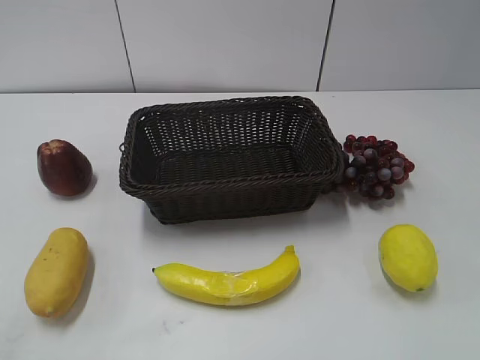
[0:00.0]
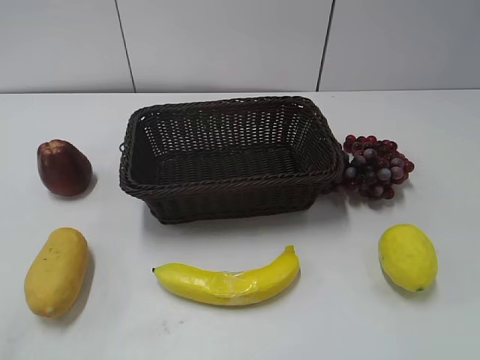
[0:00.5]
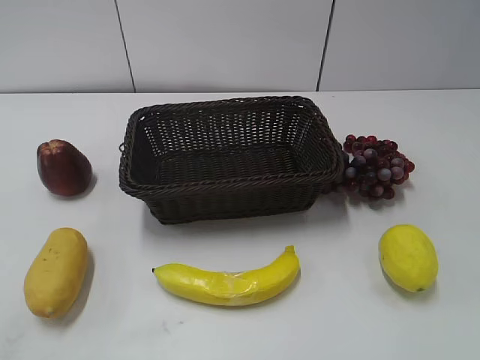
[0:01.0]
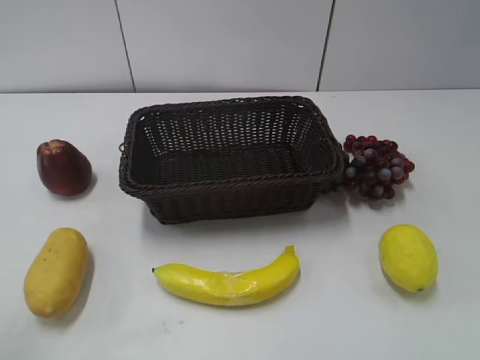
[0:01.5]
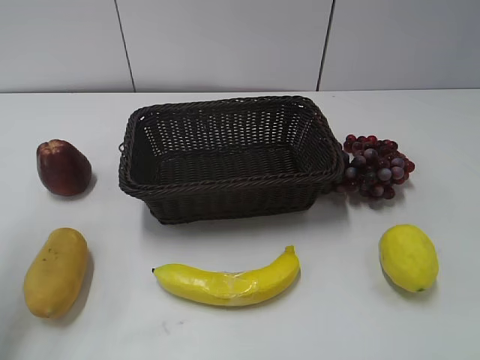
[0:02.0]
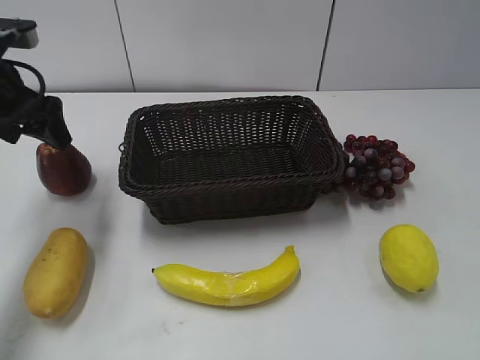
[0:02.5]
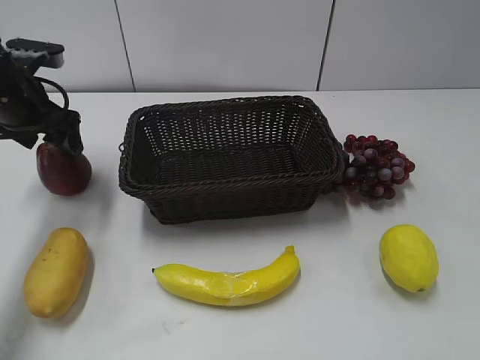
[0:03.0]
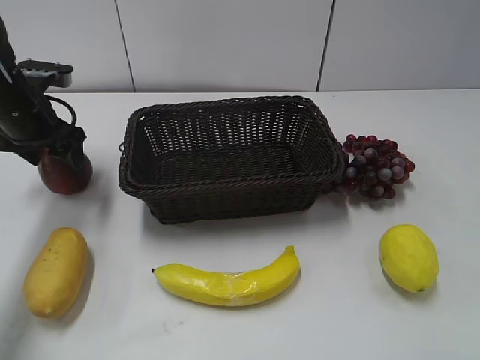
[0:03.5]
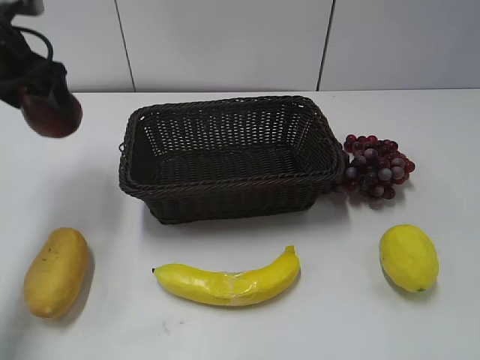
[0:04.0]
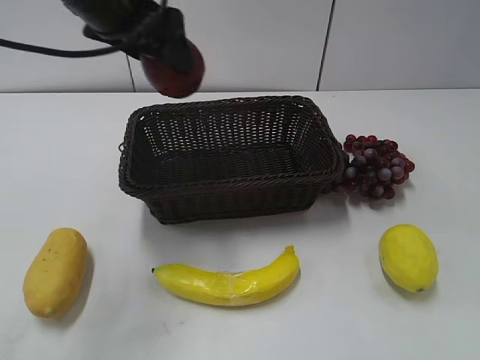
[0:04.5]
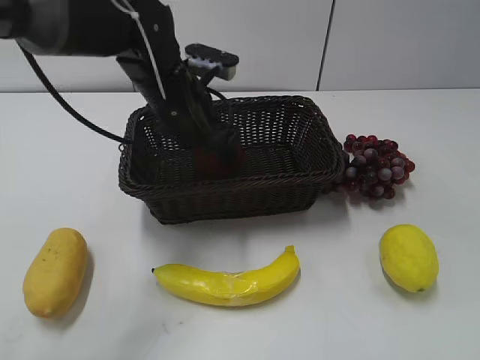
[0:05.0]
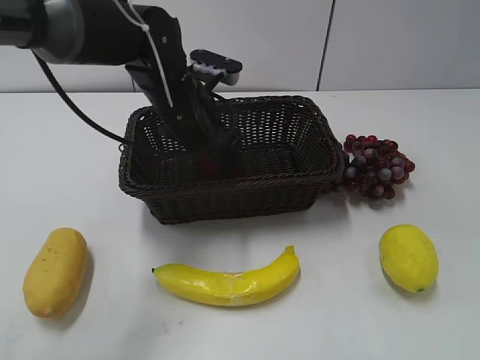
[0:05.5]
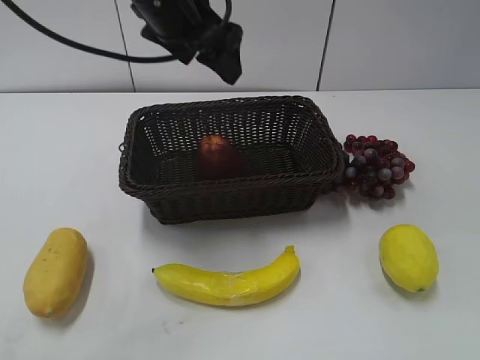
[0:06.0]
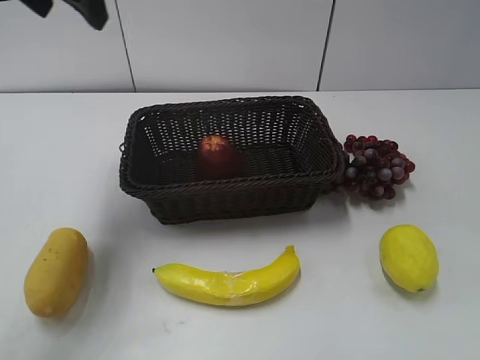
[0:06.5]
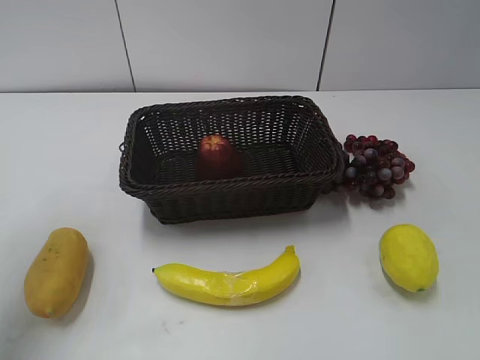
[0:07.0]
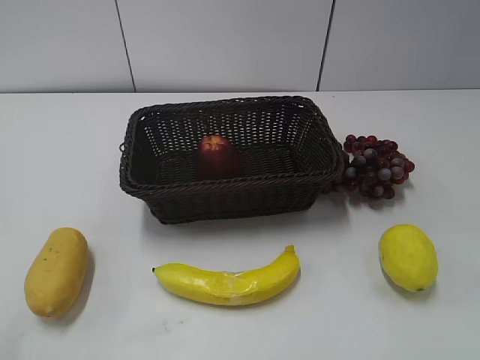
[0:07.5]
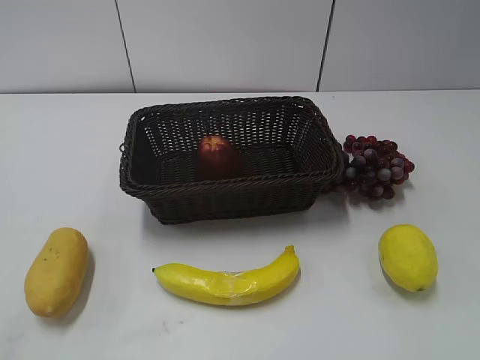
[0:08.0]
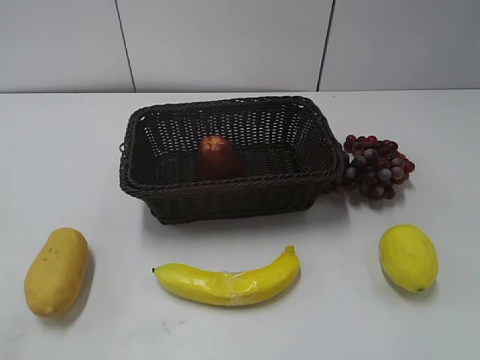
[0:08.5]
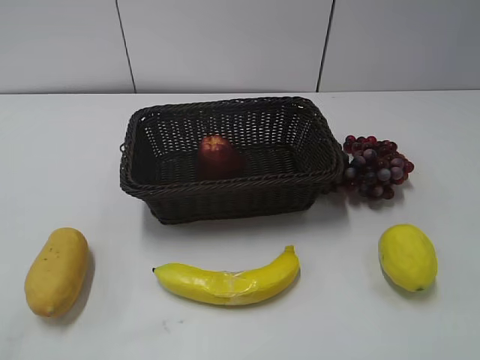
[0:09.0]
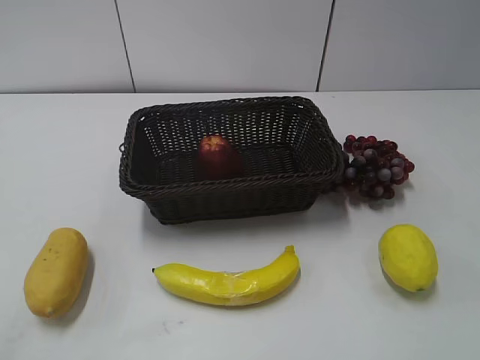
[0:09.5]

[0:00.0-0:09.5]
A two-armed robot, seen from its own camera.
Step, 0:02.5 to 0:03.5: Grasp the apple with left gripper.
Step, 0:04.0 to 0:05.0: Place the apple in the basket with left gripper.
0:02.0 to 0:04.0: The left gripper travels forward and downward by some 15 cm.
0:04.0 to 0:05.5: The left gripper is displaced to the right and downward by approximately 20 cm.
0:05.5 to 0:07.5: The left gripper moves backward, to the left and upward, approximately 40 cm.

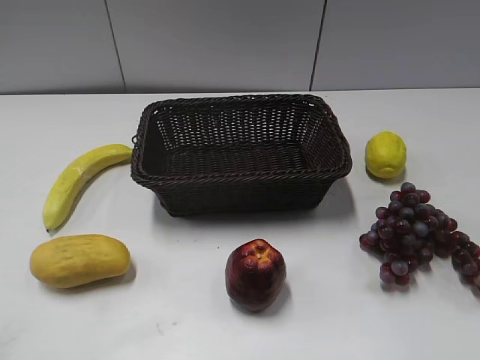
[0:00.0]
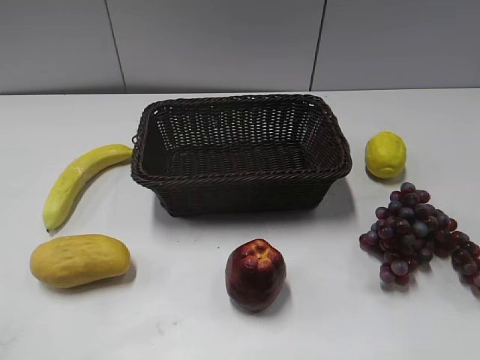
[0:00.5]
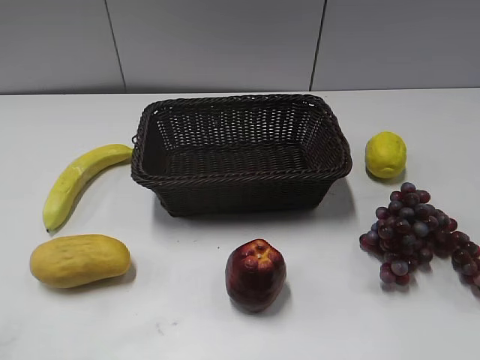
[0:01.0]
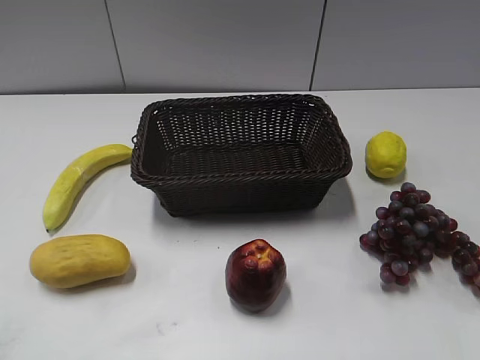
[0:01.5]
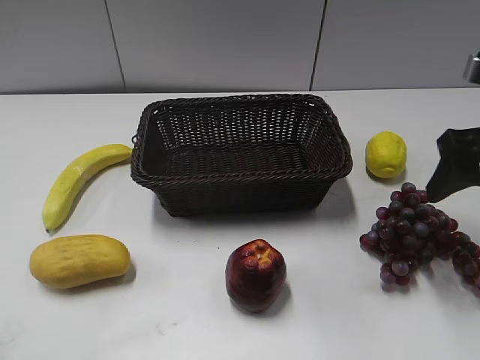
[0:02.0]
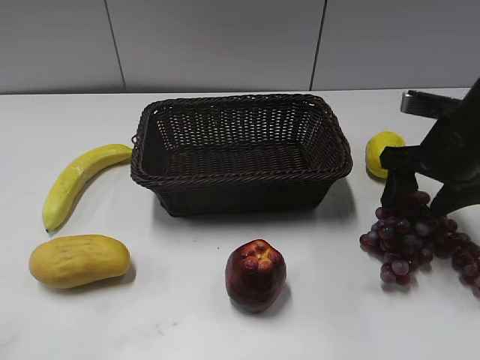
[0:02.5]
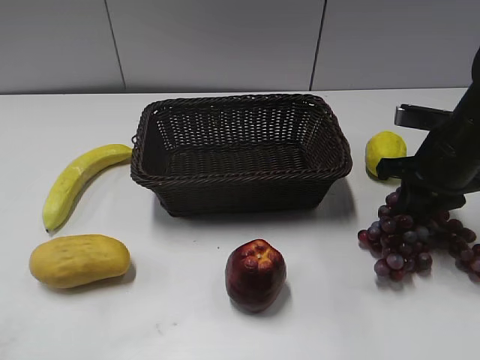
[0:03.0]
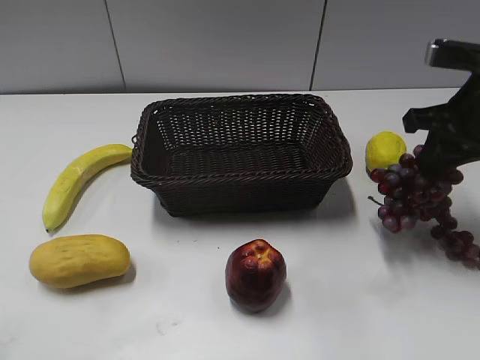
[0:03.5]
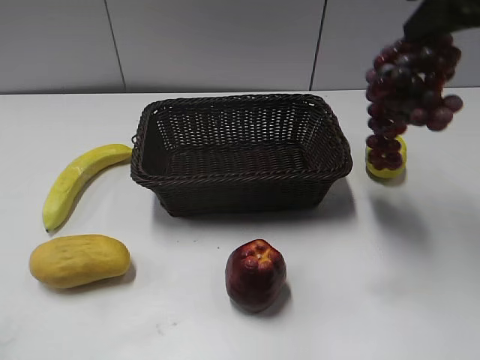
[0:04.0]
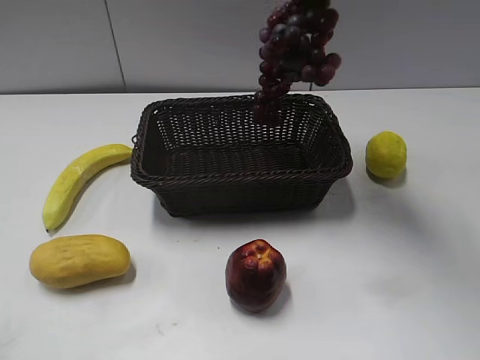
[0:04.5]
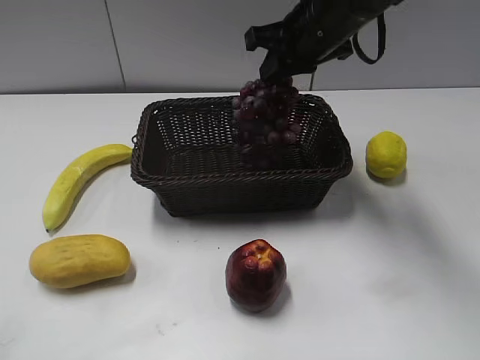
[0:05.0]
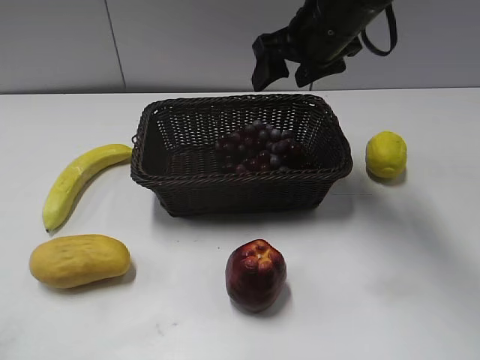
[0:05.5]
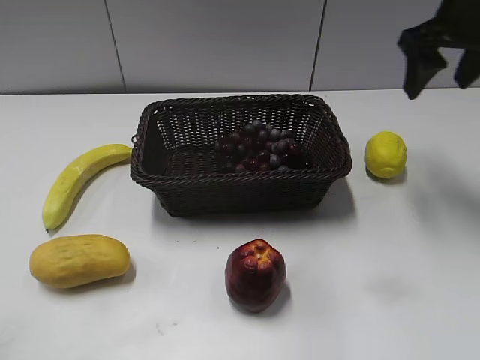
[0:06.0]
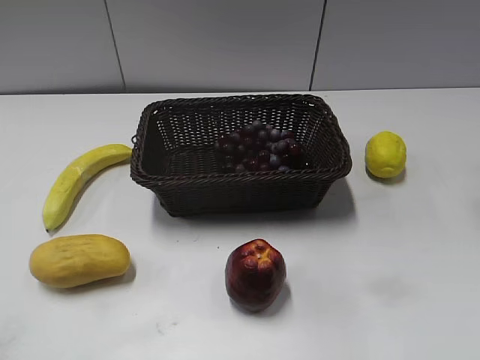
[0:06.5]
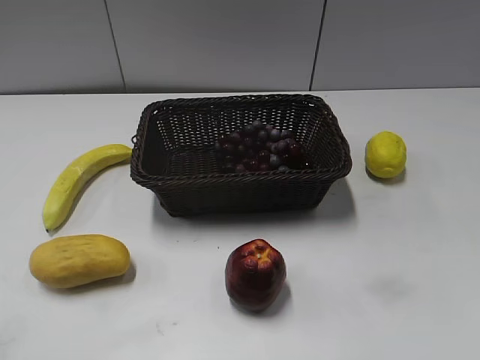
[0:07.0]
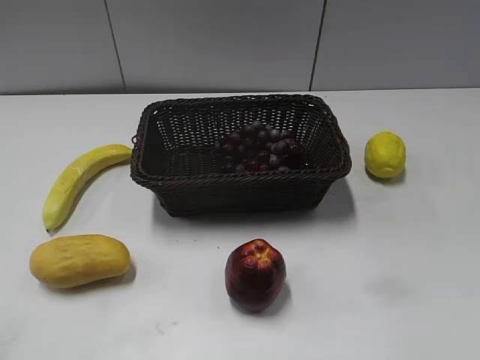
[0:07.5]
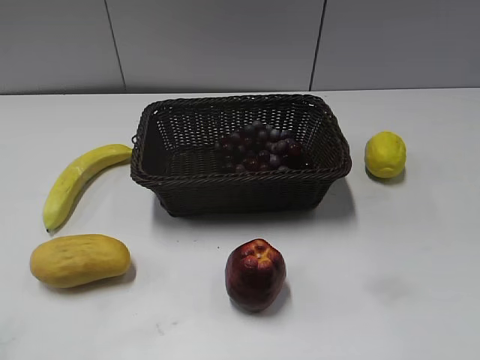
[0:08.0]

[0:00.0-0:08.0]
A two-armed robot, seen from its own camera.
Step, 0:02.0 to 0:02.5: Grasp the grape with right gripper.
Step, 0:03.0 to 0:05.0: Place the grape in the basket with right gripper.
0:02.0 to 0:04.0: The right gripper heads upward and to the left, covering some 15 cm, and closes its fingers.
0:04.0 to 0:06.0: The right gripper goes some 10 cm forward and downward, travels to the left and back again, approximately 10 cm each way, and opens.
0:06.0 to 0:08.0: The right gripper goes roughly 40 cm backward.
